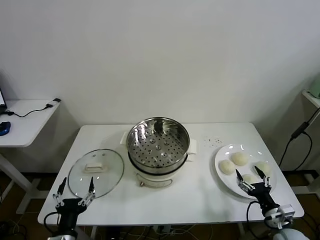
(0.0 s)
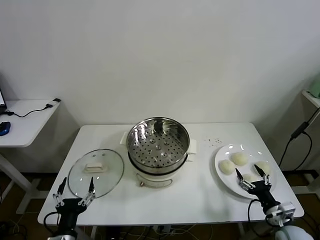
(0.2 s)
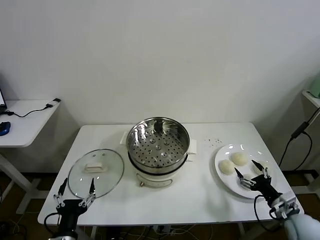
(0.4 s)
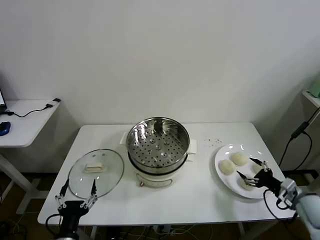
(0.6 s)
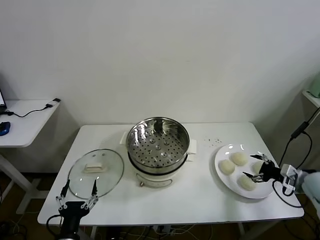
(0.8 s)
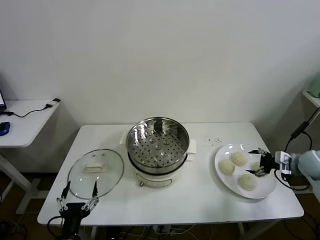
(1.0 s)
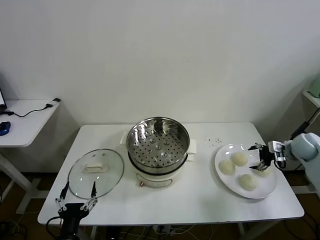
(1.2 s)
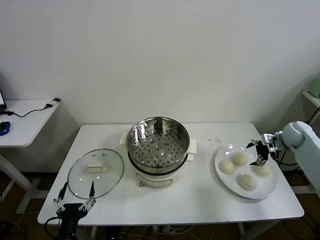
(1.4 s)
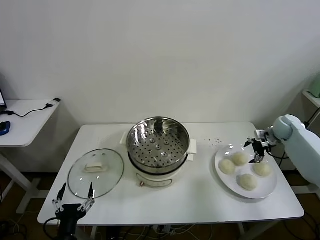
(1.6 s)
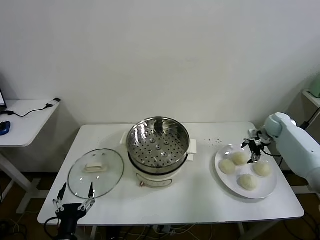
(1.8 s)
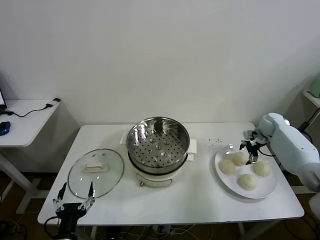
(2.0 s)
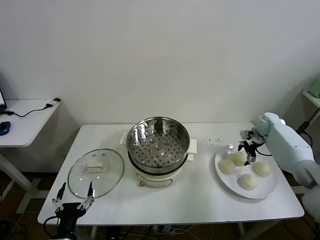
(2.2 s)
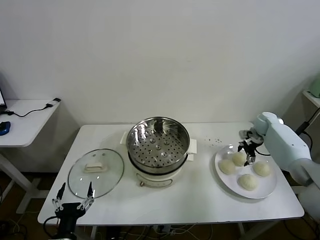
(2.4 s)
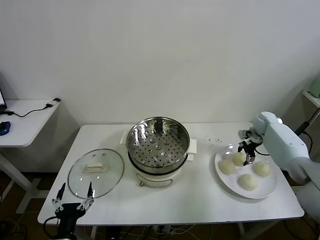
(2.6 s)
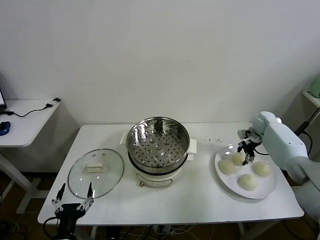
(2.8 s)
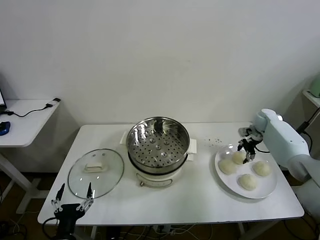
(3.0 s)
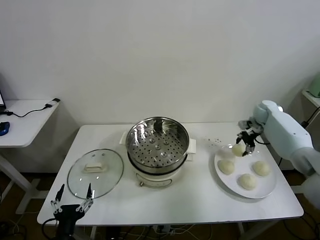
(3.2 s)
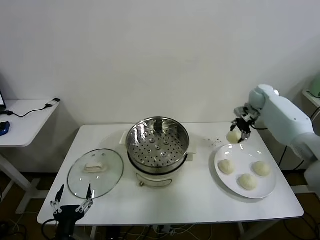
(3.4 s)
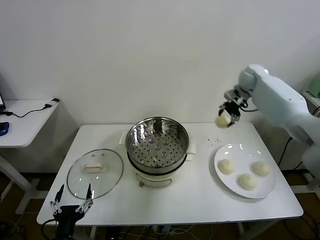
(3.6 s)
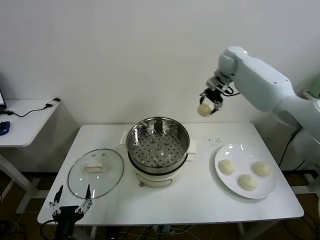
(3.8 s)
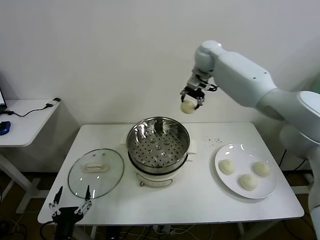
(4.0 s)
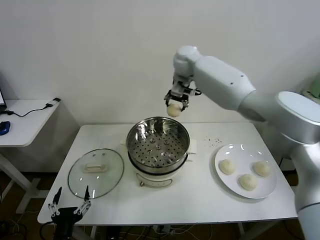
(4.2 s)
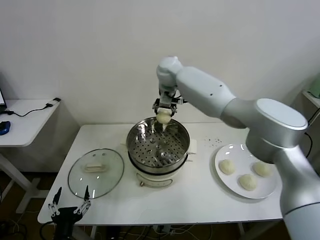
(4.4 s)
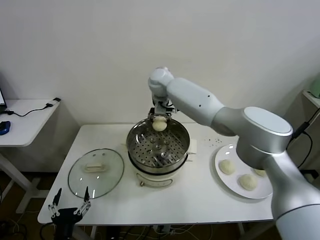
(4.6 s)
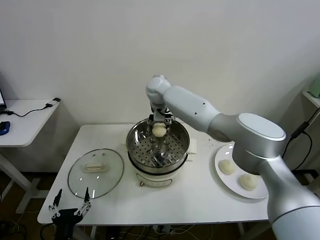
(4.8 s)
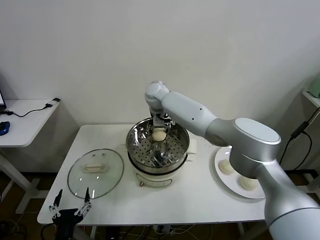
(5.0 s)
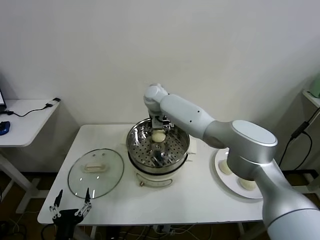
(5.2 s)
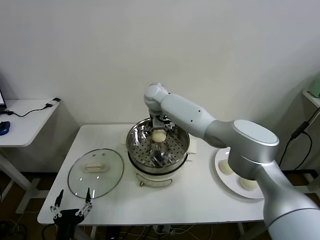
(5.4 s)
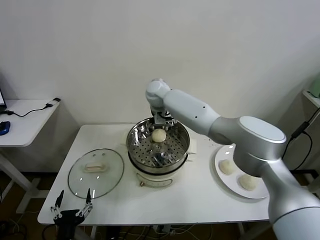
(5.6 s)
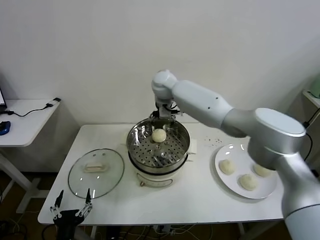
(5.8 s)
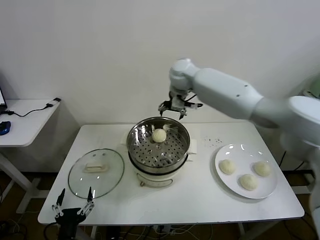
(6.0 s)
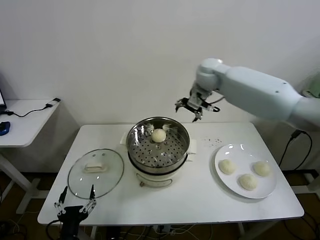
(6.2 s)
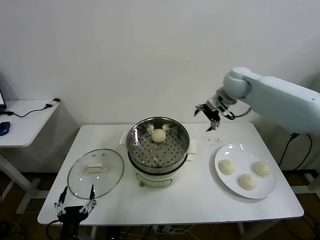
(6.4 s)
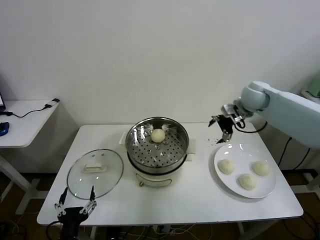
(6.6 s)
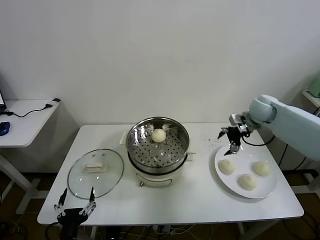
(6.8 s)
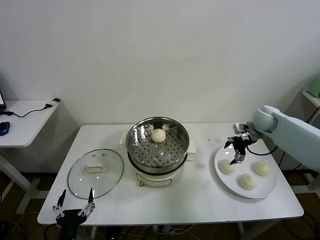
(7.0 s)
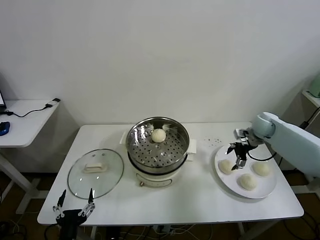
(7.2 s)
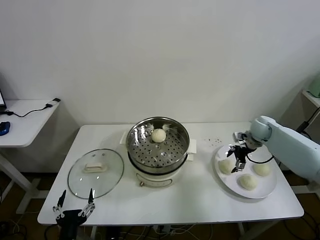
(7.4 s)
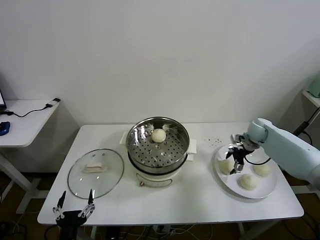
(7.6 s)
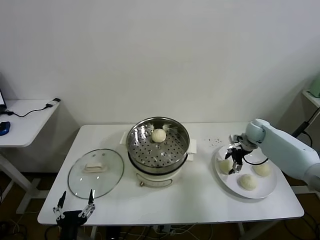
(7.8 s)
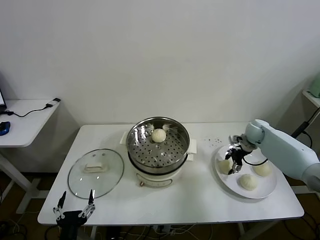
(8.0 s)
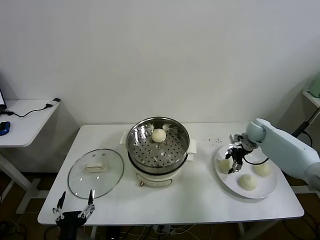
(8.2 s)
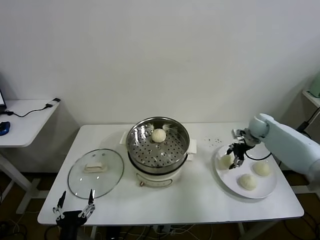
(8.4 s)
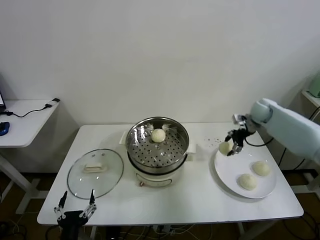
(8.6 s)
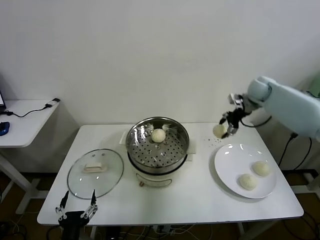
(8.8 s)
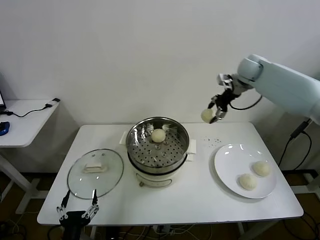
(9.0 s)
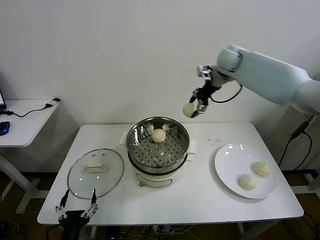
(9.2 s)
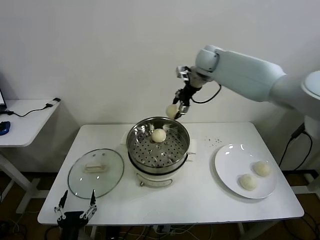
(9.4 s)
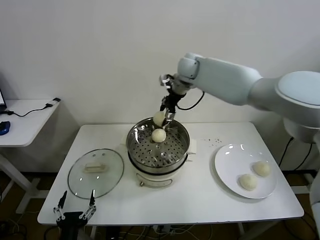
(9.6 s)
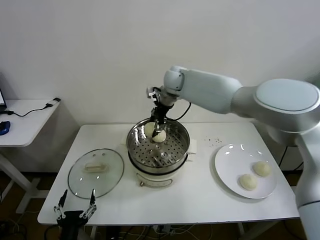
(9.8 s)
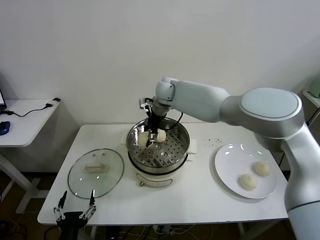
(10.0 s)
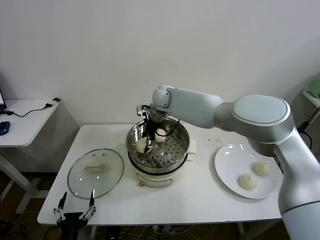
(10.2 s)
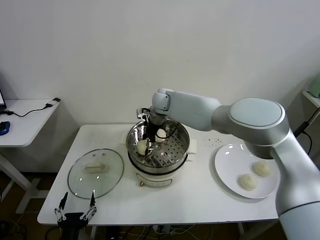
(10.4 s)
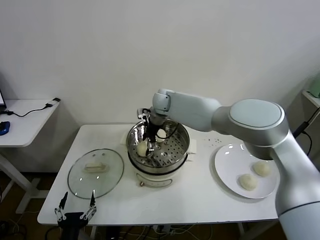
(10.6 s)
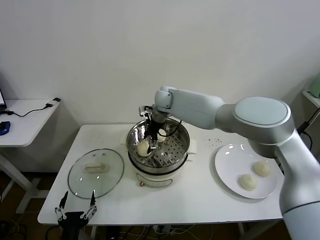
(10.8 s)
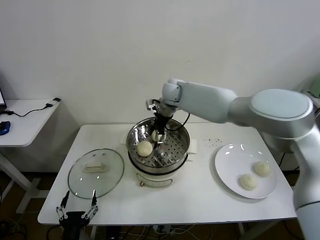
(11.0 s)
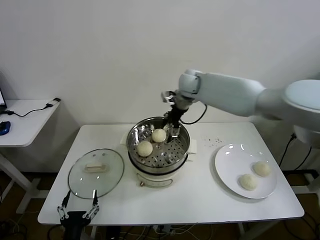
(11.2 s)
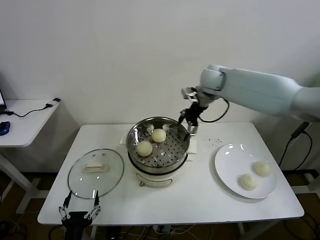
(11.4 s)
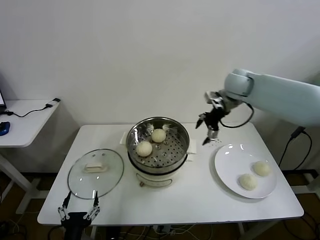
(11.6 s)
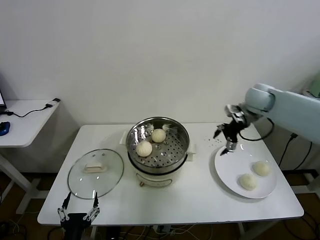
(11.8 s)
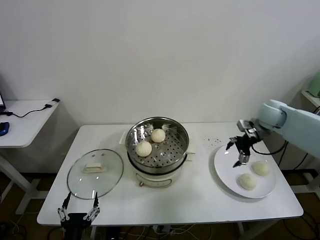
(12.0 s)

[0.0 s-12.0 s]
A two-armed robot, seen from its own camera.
Task of the whole recording: take steamed baozi put them in steamer then cover it.
Step, 0.0 to 2.8 s: Grasp the baozi in the plate with right gripper.
Step, 3.0 to 5.6 s: Place the baozi on the steamer with right gripper.
Step, 5.8 to 8.2 s: Grasp the baozi in the plate with right gripper.
Step, 8.4 to 11.0 s: Place the baozi on the steamer with right gripper.
1.6 to 3.0 s: The right gripper ends up approximately 5 cm from where it was, and closes up.
3.0 to 4.4 s: The right gripper moves to the left and upward, about 50 cm.
4.4 to 6.0 s: The right gripper heads to the right, covering approximately 10 cm, and opens.
6.0 to 7.6 s: The right gripper heads to the right and downward, covering approximately 35 cm.
7.6 to 9.0 s: The right gripper is displaced upward and to the left by approximately 30 cm, and closes its fingers.
9.0 to 10.4 s: The right gripper travels to the left and downward by some 30 cm.
10.4 to 12.0 s: The right gripper goes some 40 cm to the right, and opens up.

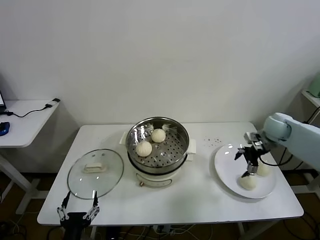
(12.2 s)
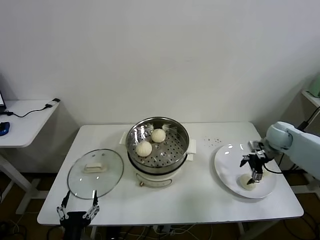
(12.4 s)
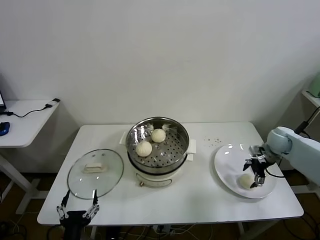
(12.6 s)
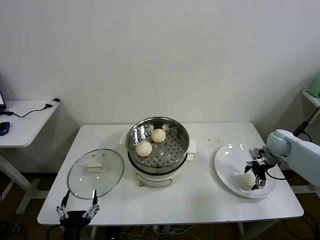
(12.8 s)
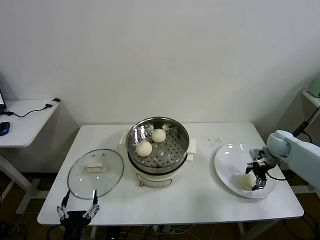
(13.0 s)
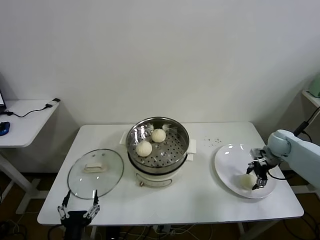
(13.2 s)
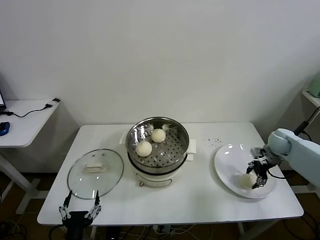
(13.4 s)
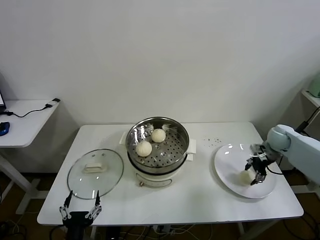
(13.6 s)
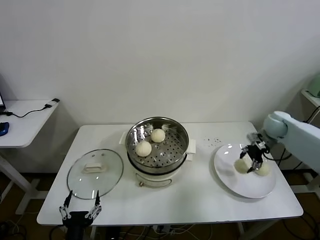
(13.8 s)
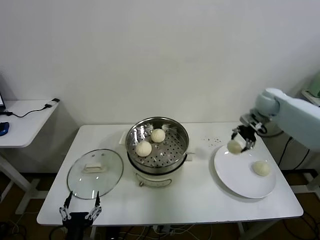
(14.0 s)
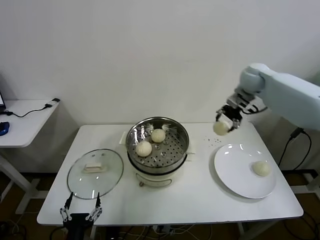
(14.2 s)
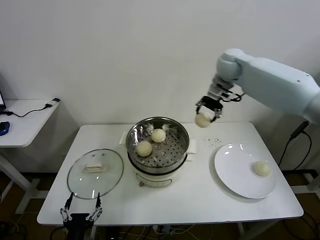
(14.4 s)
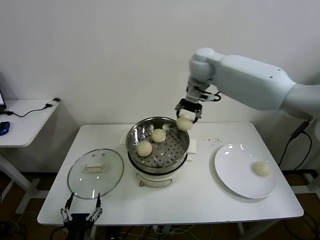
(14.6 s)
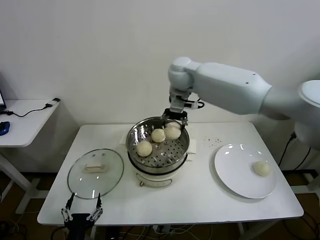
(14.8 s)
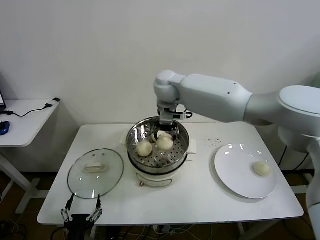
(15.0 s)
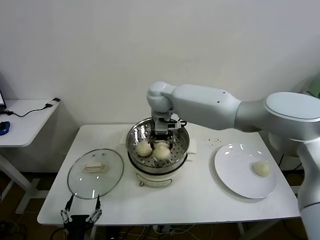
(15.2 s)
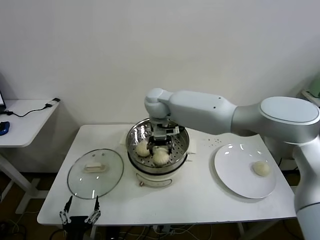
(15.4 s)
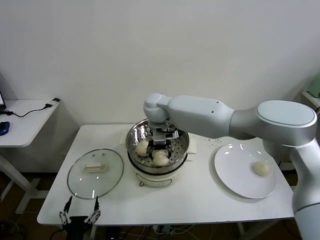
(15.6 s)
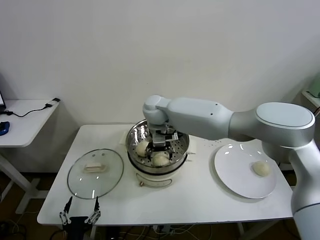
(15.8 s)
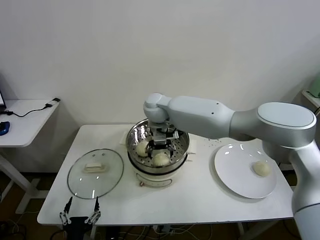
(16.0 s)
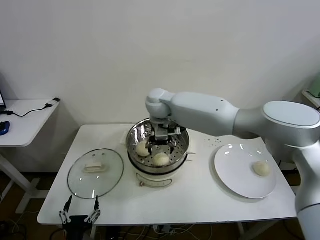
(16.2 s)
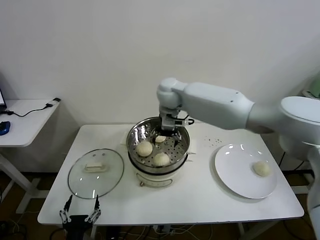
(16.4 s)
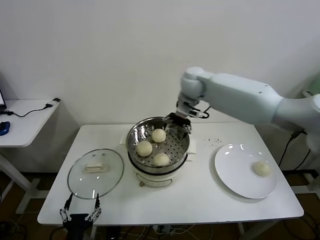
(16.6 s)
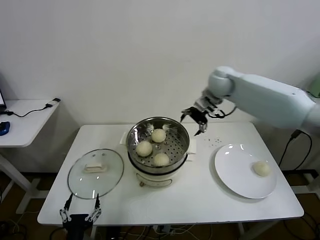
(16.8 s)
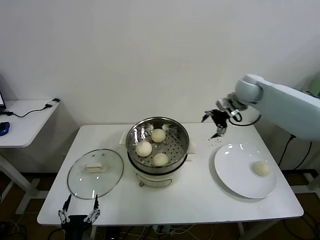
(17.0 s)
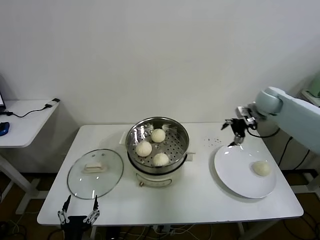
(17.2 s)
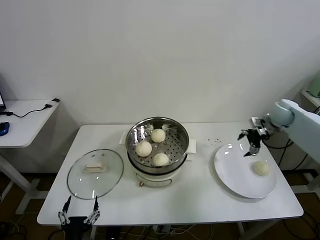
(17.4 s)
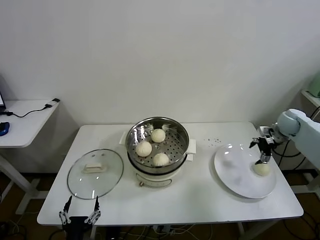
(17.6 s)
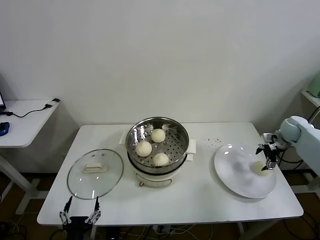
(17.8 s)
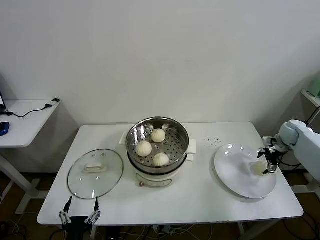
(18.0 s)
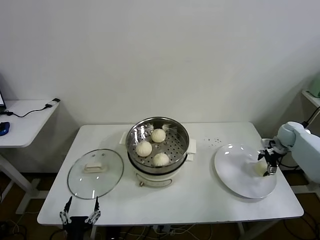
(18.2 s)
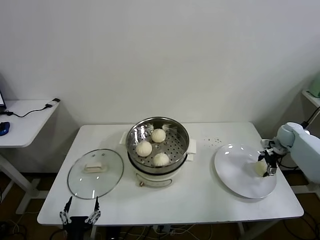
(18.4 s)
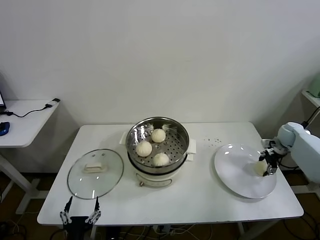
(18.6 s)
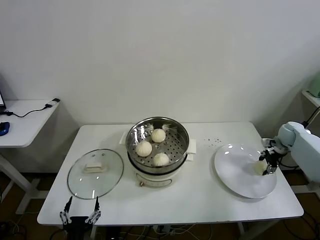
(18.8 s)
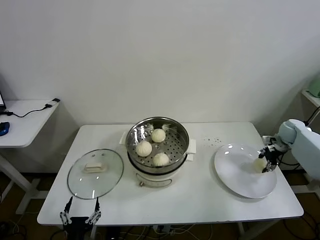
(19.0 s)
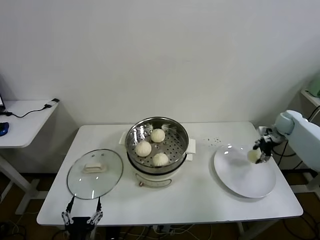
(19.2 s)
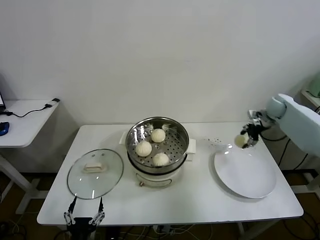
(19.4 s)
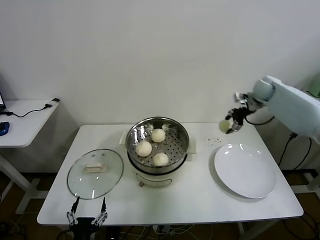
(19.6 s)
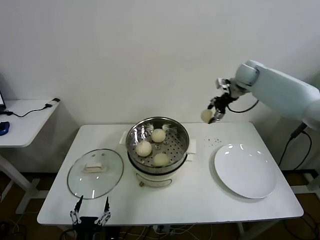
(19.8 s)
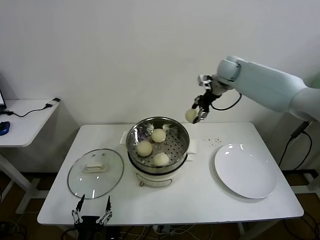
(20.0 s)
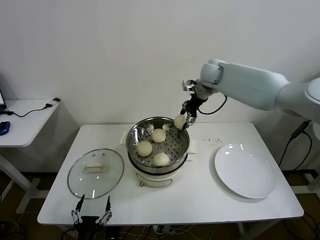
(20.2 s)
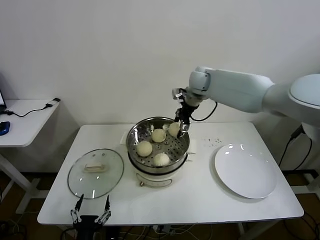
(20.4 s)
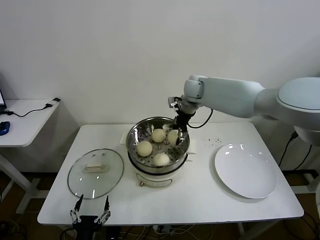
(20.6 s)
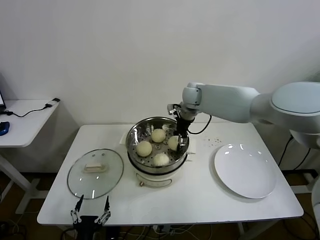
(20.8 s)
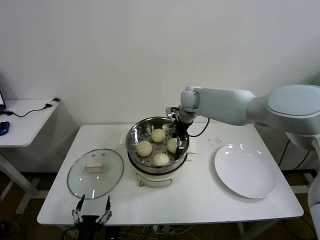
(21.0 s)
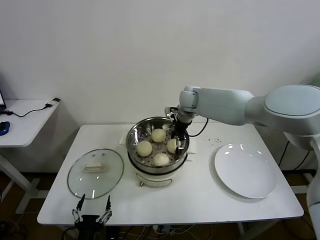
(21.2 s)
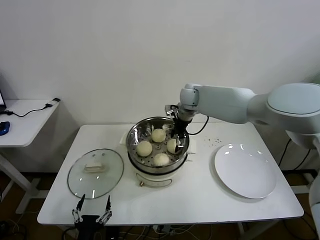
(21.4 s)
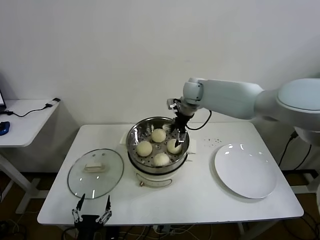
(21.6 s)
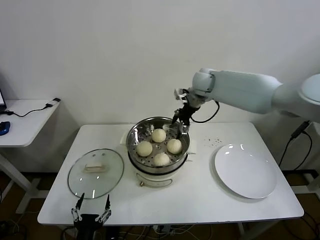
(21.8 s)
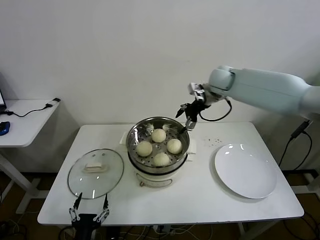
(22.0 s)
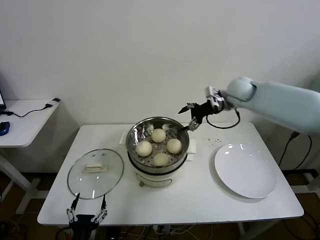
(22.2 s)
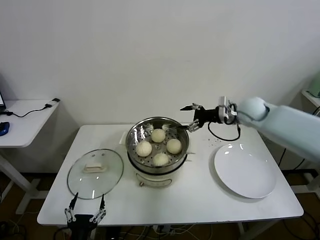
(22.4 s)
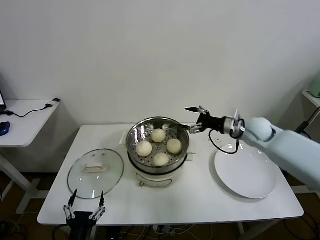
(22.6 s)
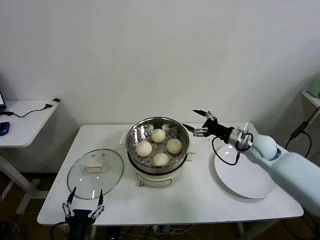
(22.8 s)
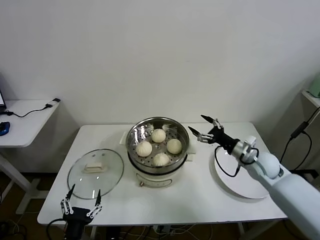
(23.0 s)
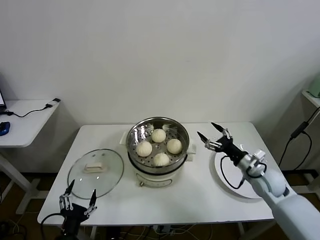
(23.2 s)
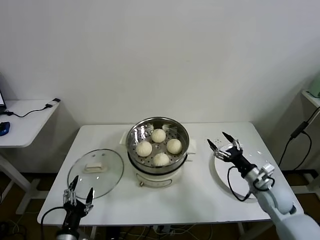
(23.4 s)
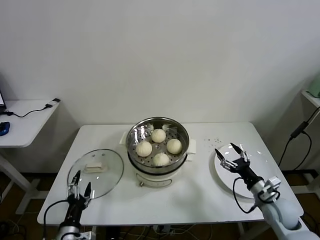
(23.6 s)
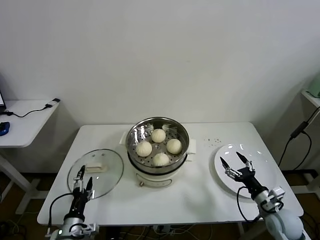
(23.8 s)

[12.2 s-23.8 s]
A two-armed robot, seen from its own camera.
Task of the whole recording: take steamed baozi put them in steamer then cover it.
Step, 12.2 to 13.4 s: Grasp the baozi in the plate with right gripper.
Step, 13.6 to 16.2 s: Place the baozi on the steamer with right gripper.
Step, 16.4 to 18.8 s: Grasp the baozi in the plate with right gripper.
Step, 19.0 to 21.4 s: Place the baozi on the steamer with right gripper.
12.2 to 13.6 s: The right gripper closes.
13.6 to 15.0 s: The right gripper heads to the left and upward, covering roughly 50 cm.
15.0 to 16.6 s: The right gripper shifts about 10 cm to the right, and opens its fingers.
16.6 to 18.0 s: The right gripper heads to the right and downward, covering about 40 cm.
18.0 to 19.4 s: The right gripper shifts some 15 cm upward, to the left and forward, and closes its fingers.
19.4 to 21.0 s: The right gripper heads to the left, covering approximately 35 cm, and opens its fingers.
21.0 to 22.4 s: The right gripper is displaced to the right and backward by approximately 20 cm, and opens up.
22.4 to 23.8 s: The right gripper shifts about 35 cm backward and downward, while the left gripper is displaced forward, to the left and downward by roughly 15 cm.
